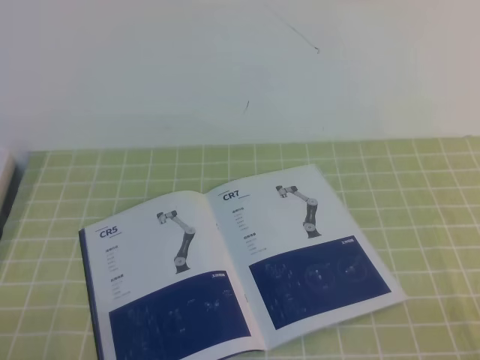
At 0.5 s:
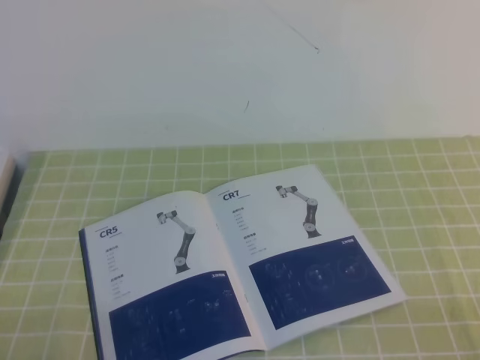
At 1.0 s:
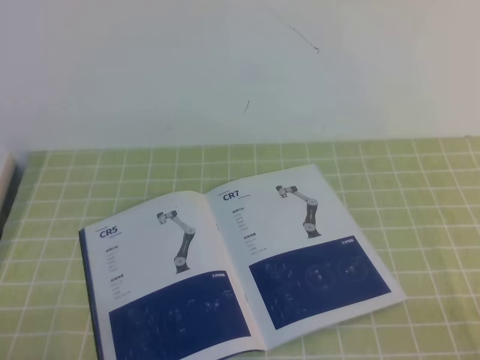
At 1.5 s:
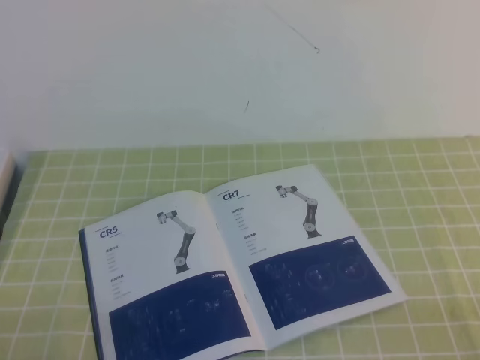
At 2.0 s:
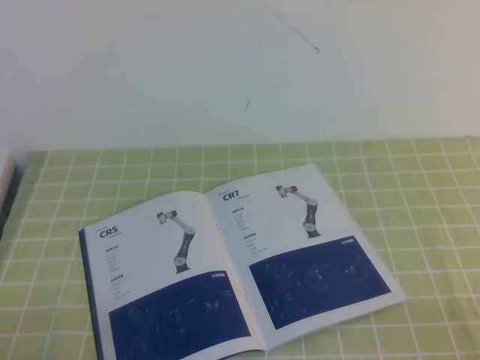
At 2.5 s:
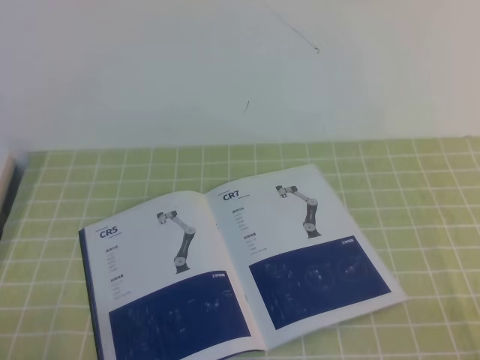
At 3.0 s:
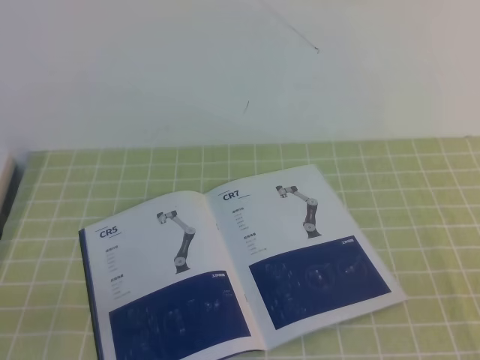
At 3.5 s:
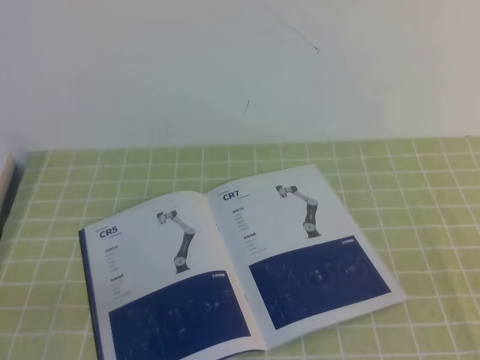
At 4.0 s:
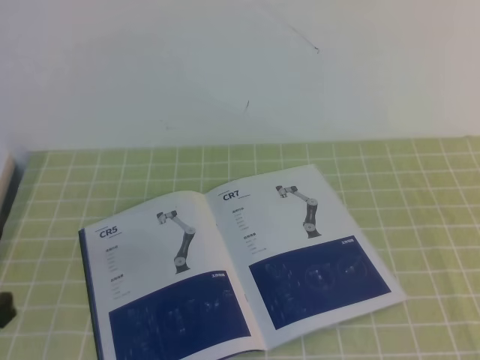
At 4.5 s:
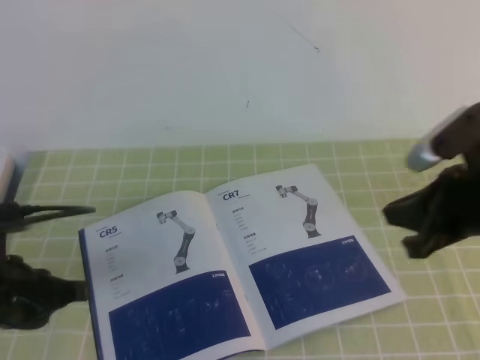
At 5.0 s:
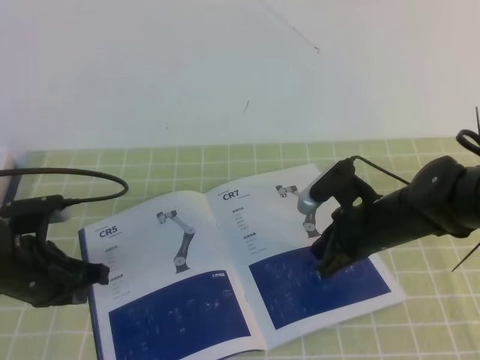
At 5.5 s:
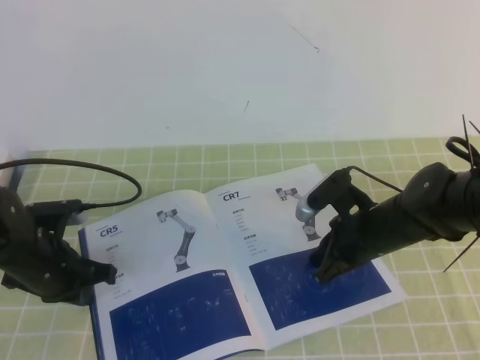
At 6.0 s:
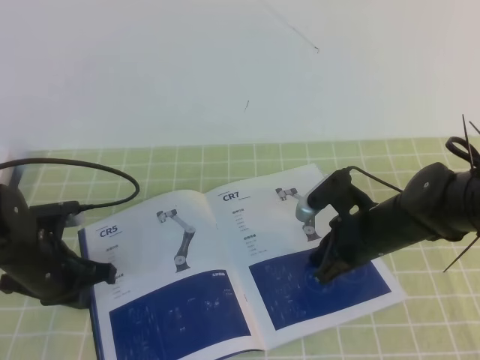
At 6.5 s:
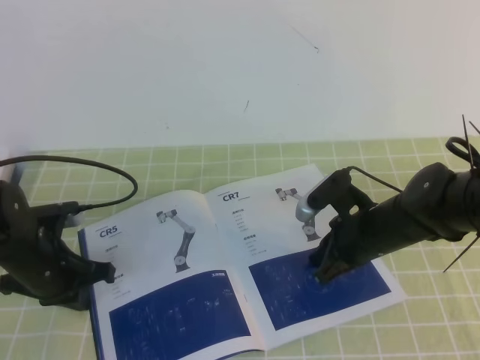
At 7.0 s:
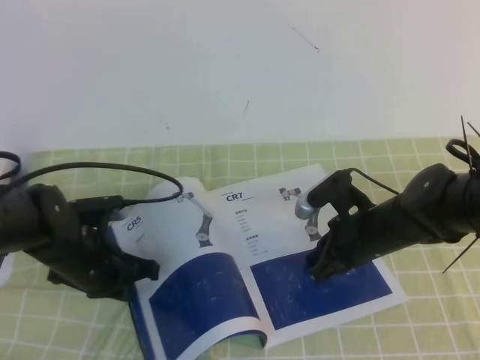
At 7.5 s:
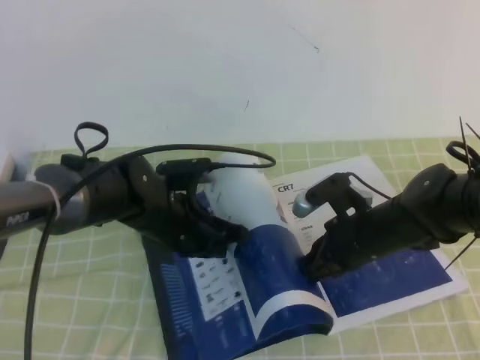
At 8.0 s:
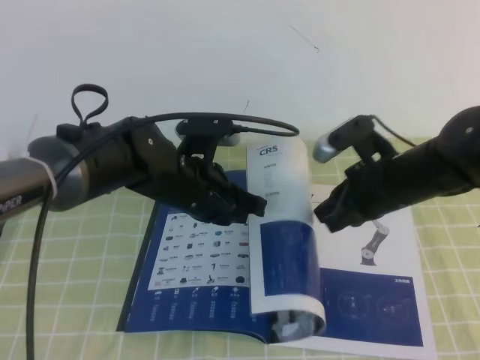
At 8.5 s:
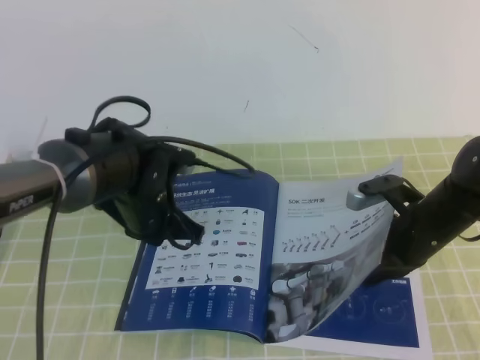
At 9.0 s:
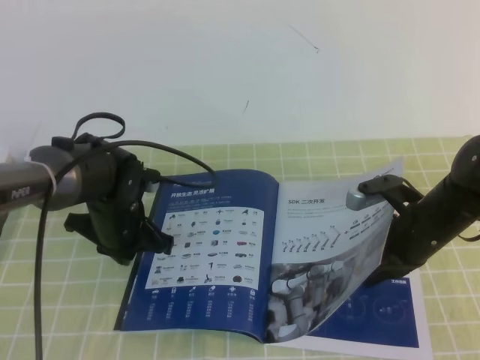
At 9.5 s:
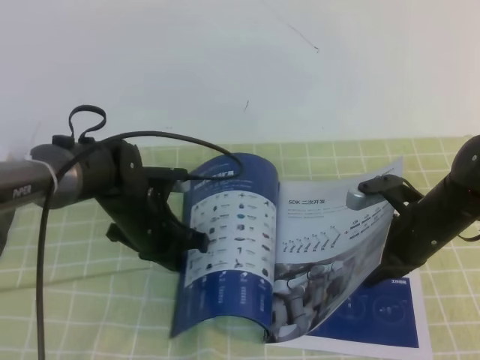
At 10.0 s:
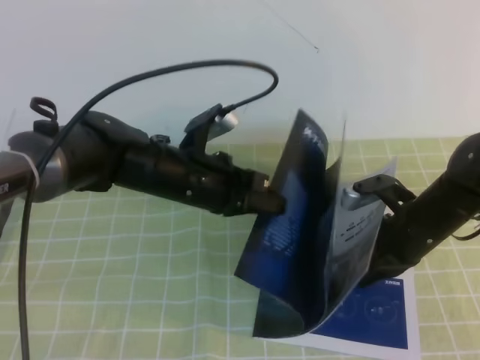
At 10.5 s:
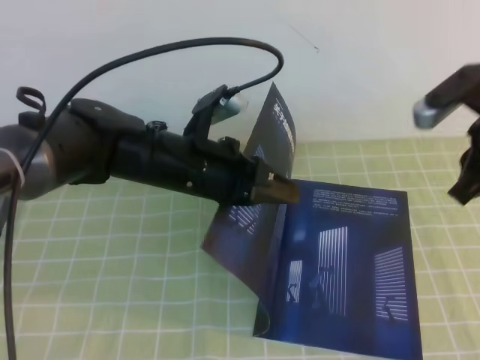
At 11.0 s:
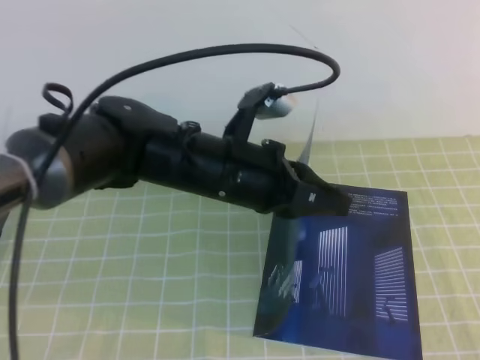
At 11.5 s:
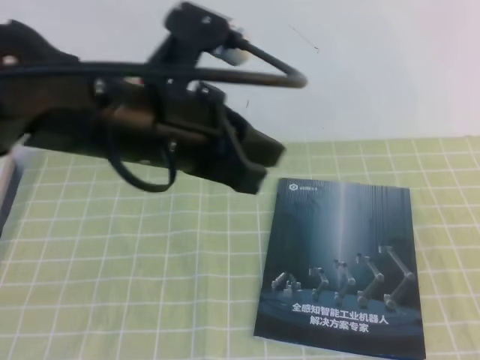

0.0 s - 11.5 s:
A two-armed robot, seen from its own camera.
Task of the whole recording: on the green tablecloth, hold the book with one hand and close it with the other.
0.0 s - 2.0 s: Both grippers stay put.
4.0 s - 6.0 s: The left gripper goes approximately 25 cm forward and downward. Meanwhile the right gripper is displaced downward, forward and to the left by approximately 35 cm.
6.0 s - 7.5 s: The left gripper heads to the right, covering some 15 cm.
7.5 s - 9.5 s: The right gripper is displaced to the right by approximately 5 cm.
9.5 s - 11.5 s: The left gripper goes roughly 25 cm upward and backward; the right gripper goes roughly 35 cm backward and upward.

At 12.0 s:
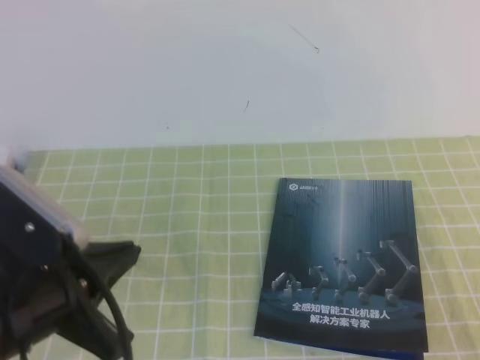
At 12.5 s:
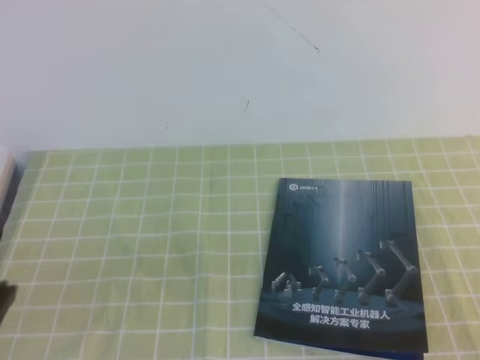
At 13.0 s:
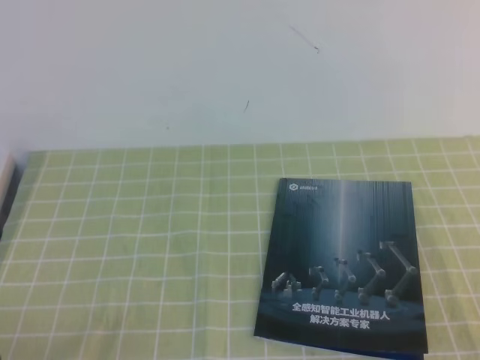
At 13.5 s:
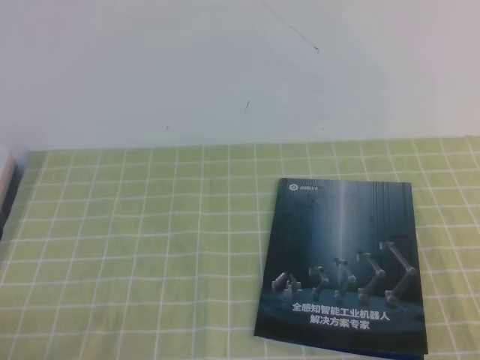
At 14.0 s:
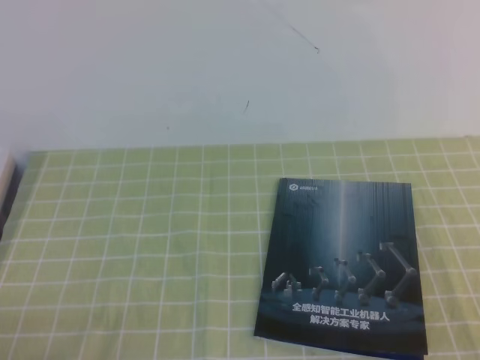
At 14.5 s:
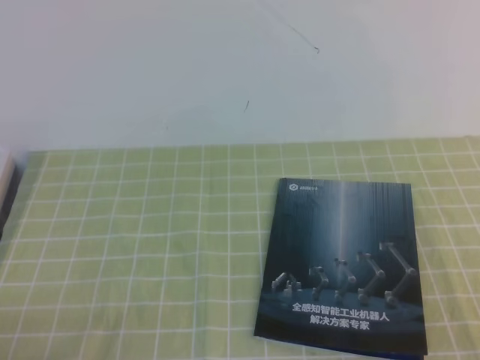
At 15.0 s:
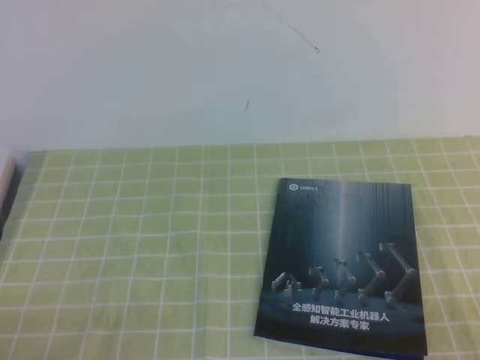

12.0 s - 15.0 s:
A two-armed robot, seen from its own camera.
Task of the whole recording: on the green tablecloth, hold the book with one hand and close it with the other.
Step, 12.0 s - 15.0 s: Close the open book.
12.0 s - 13.5 s: The left gripper moves downward, backward and to the left, about 20 cm.
